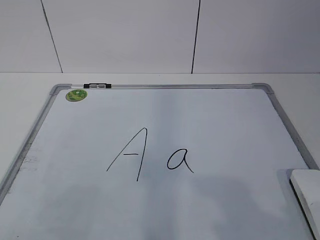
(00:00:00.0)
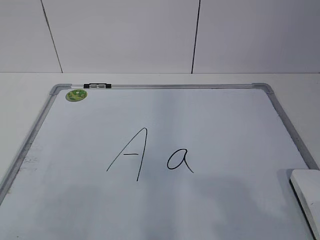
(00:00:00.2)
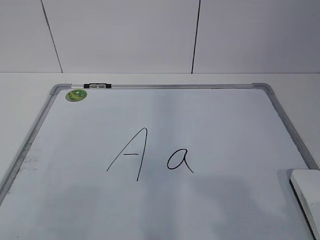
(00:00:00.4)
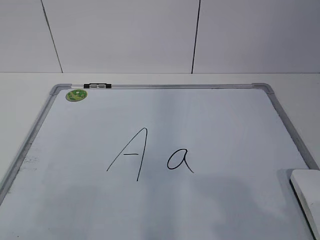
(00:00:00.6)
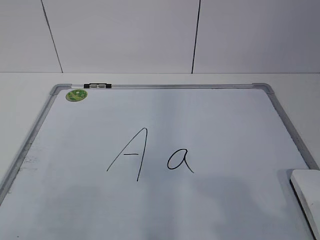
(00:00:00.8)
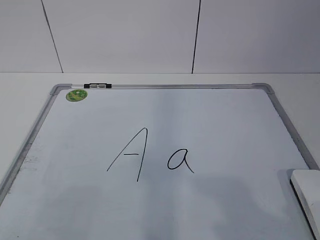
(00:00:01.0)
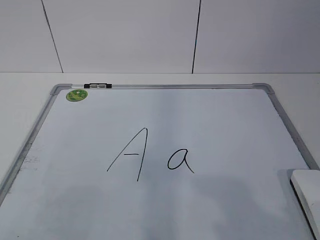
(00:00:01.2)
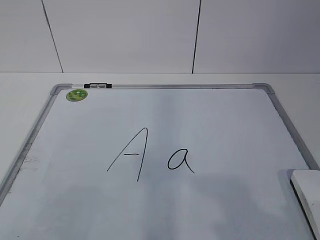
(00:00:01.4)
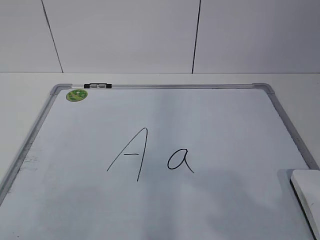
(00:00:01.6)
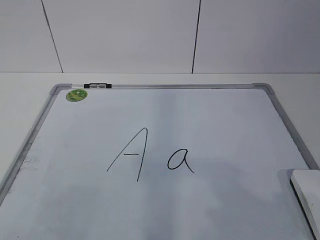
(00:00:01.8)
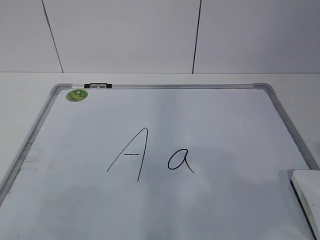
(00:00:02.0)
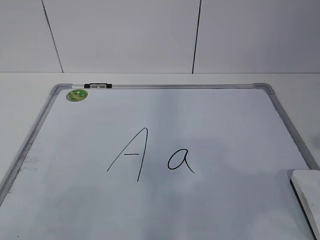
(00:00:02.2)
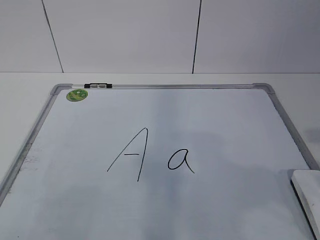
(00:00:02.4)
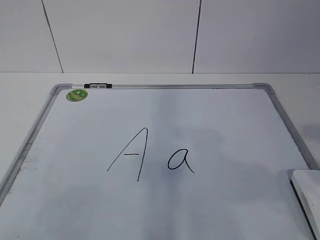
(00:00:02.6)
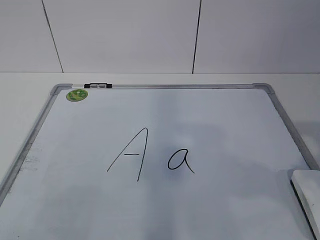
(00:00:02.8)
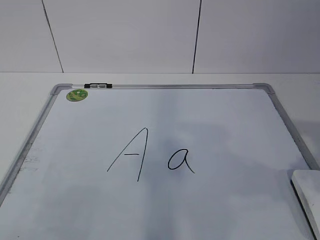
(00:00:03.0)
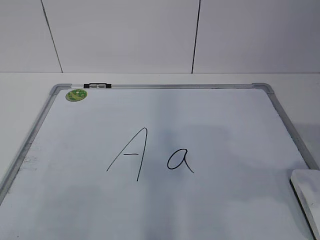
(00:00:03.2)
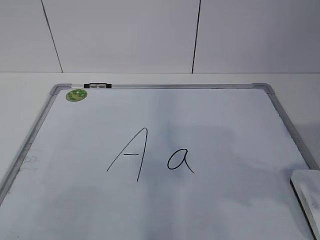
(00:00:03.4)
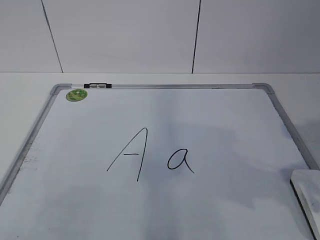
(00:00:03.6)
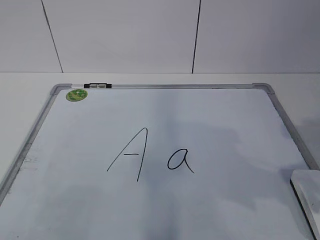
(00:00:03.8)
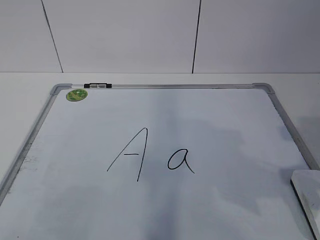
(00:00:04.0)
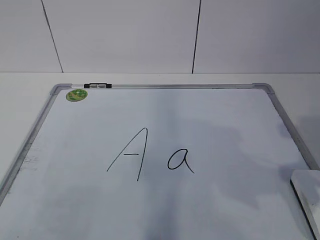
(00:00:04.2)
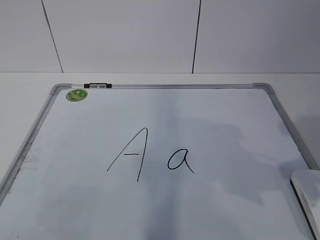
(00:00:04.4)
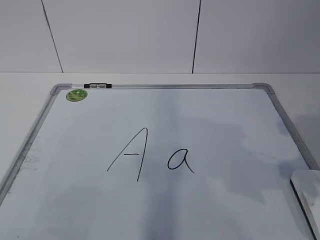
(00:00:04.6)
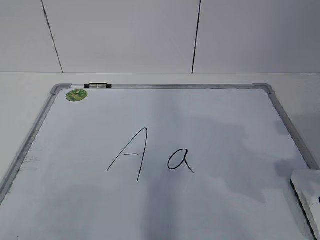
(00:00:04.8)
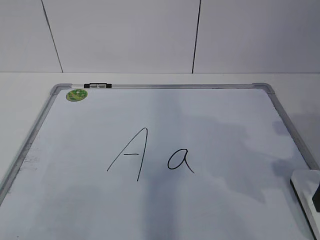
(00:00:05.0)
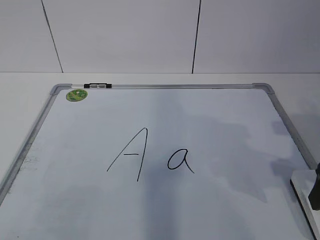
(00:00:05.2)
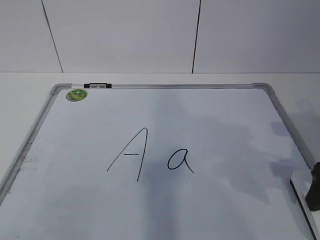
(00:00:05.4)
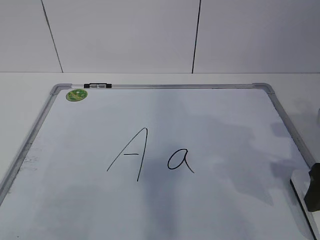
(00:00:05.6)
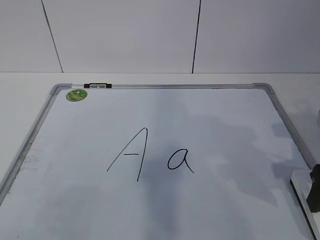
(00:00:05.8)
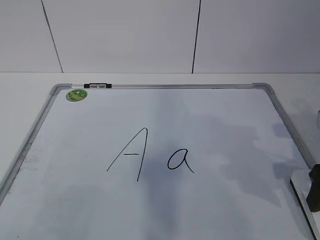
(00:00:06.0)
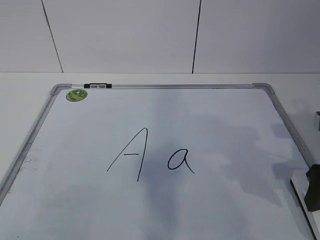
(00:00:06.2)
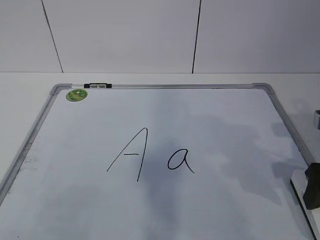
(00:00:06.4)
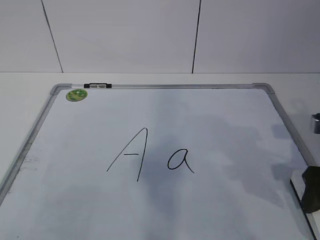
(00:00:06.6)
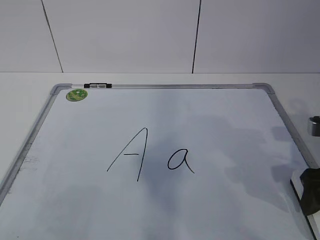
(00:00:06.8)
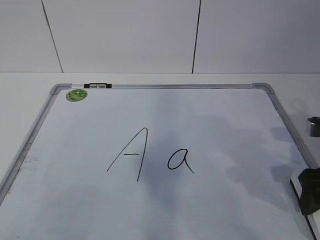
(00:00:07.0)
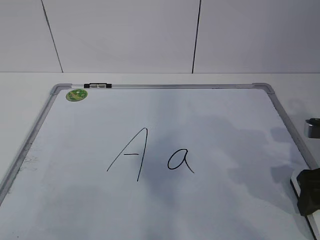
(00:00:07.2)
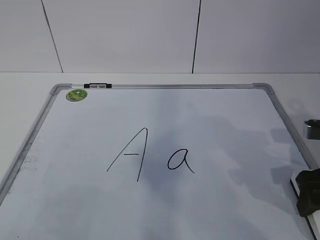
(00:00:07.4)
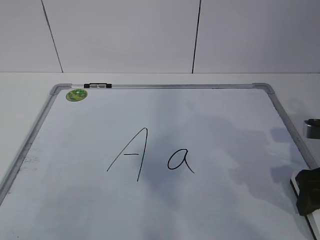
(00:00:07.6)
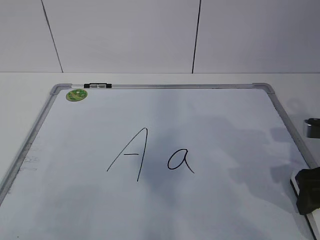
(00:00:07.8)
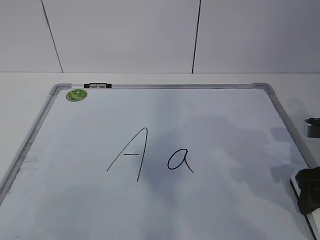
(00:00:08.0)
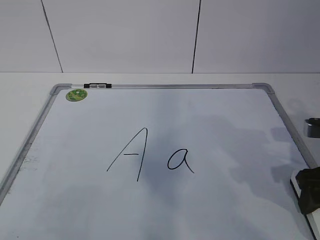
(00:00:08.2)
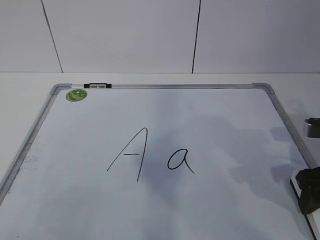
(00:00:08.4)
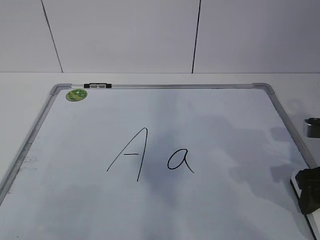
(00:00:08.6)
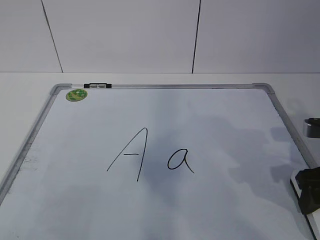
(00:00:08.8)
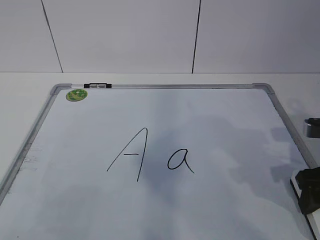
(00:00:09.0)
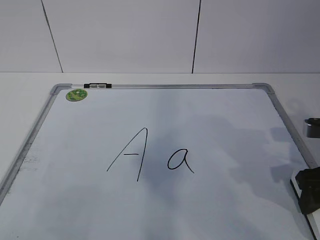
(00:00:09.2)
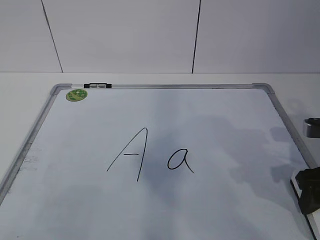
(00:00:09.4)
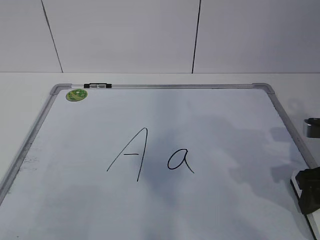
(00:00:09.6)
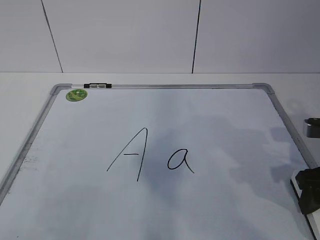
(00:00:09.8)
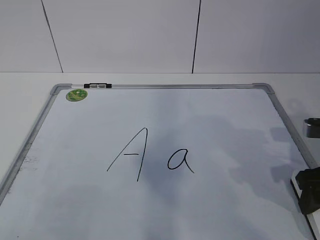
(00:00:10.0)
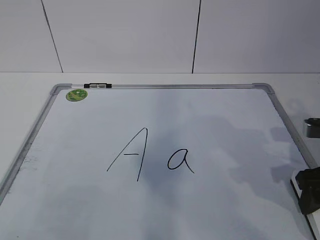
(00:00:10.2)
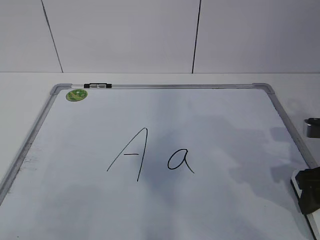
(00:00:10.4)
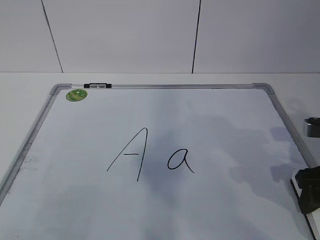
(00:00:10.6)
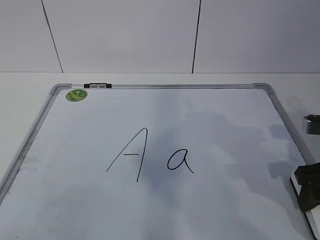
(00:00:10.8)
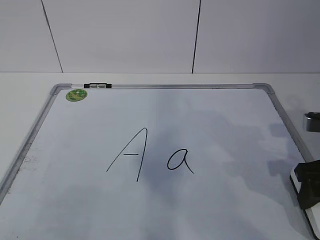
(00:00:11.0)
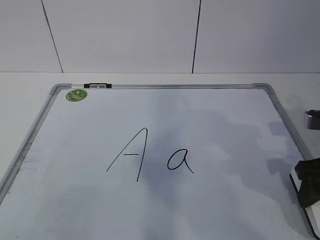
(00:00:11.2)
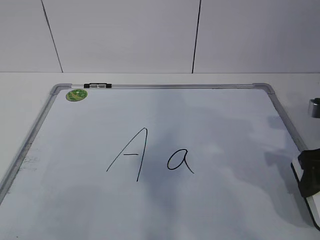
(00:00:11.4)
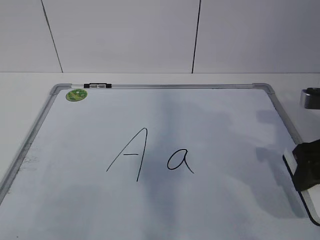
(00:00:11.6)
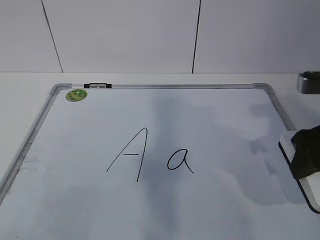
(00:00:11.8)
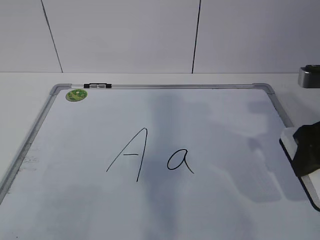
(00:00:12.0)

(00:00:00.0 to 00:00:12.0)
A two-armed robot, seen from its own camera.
Task of the whole recording: pick up the eraser on the blackboard and erase the letter "a".
00:00:04.4 - 00:00:06.0: The right gripper changes place by roughly 5 cm.
00:00:06.0 - 00:00:07.6: The grippers make only small movements.
00:00:09.0 - 00:00:10.4: Both grippers stay about where they are.
00:00:10.4 - 00:00:12.0: The right gripper moves upward, approximately 10 cm.

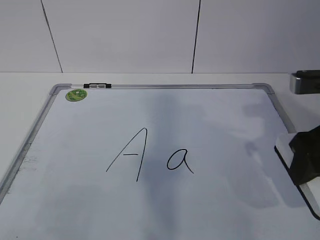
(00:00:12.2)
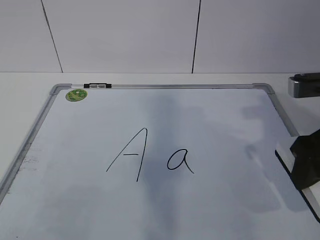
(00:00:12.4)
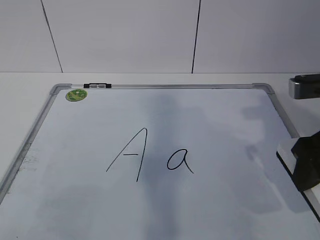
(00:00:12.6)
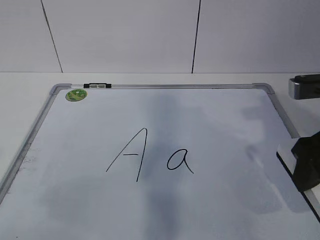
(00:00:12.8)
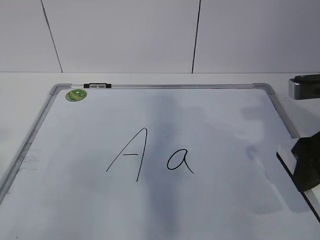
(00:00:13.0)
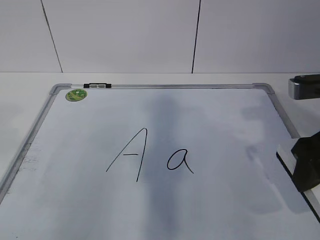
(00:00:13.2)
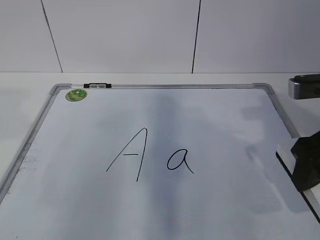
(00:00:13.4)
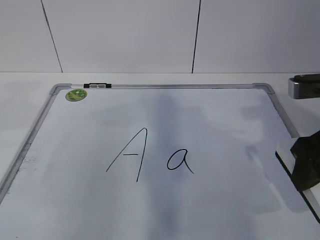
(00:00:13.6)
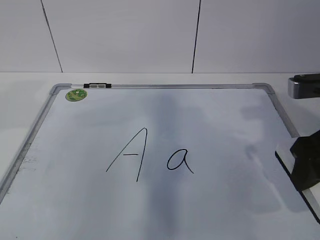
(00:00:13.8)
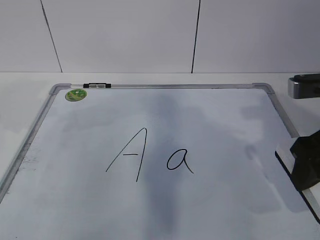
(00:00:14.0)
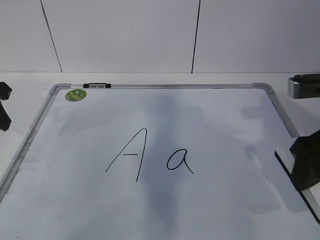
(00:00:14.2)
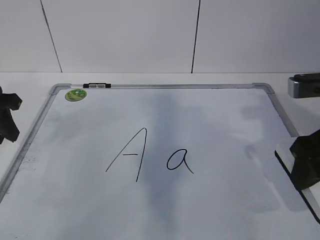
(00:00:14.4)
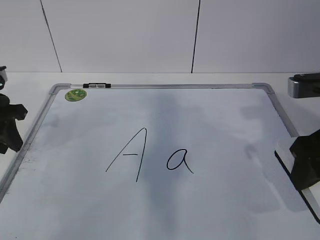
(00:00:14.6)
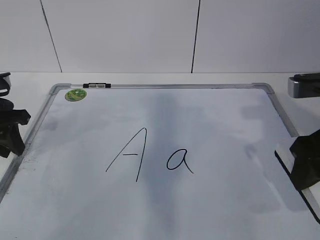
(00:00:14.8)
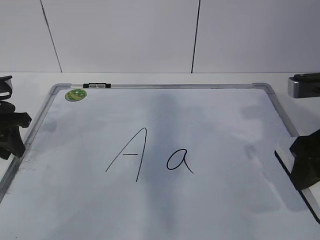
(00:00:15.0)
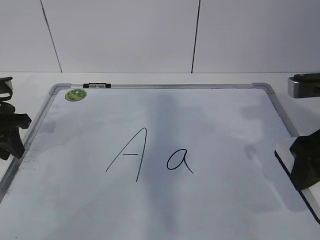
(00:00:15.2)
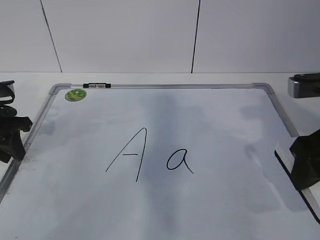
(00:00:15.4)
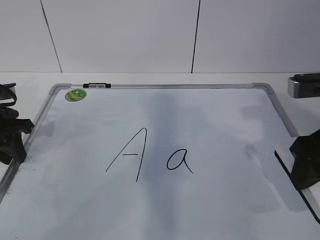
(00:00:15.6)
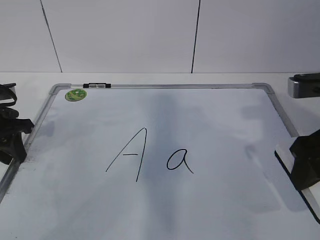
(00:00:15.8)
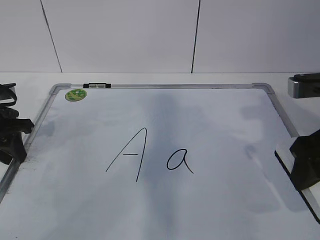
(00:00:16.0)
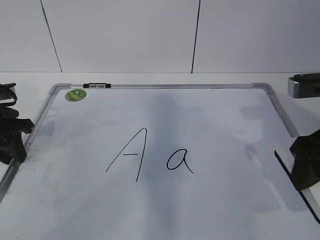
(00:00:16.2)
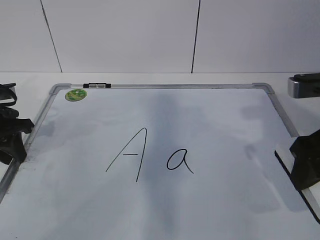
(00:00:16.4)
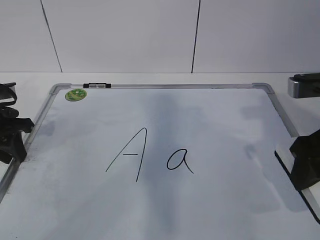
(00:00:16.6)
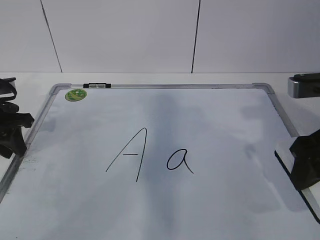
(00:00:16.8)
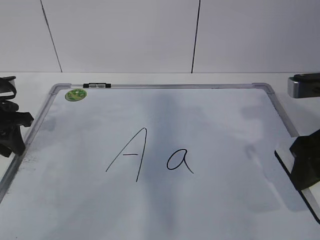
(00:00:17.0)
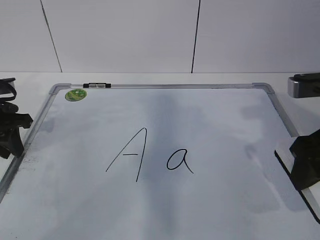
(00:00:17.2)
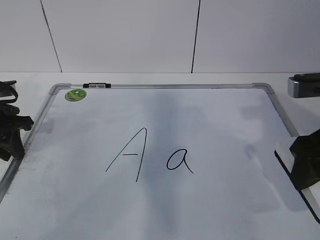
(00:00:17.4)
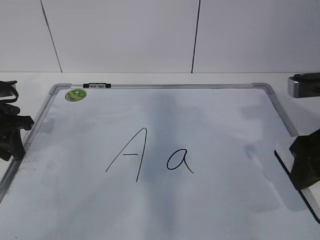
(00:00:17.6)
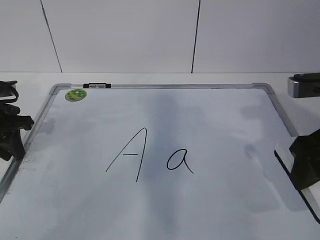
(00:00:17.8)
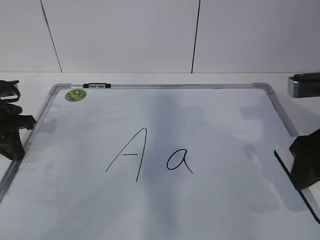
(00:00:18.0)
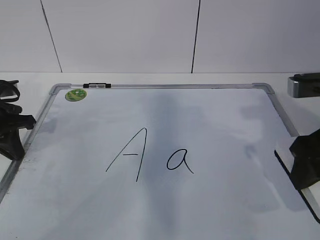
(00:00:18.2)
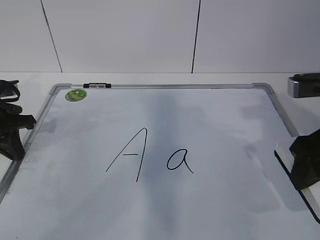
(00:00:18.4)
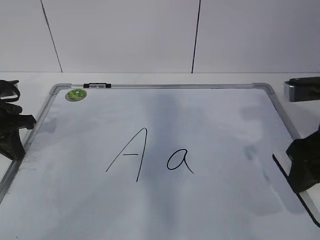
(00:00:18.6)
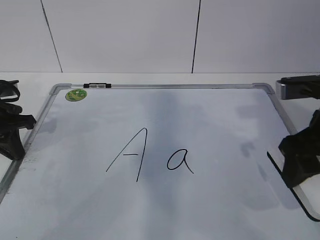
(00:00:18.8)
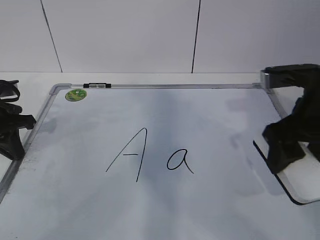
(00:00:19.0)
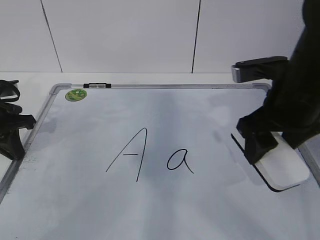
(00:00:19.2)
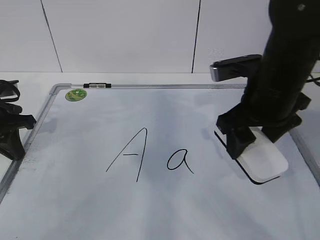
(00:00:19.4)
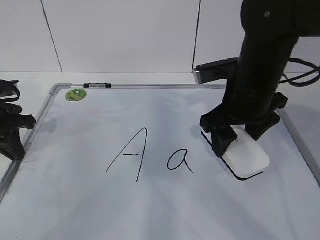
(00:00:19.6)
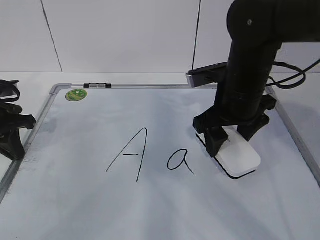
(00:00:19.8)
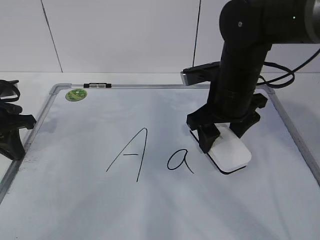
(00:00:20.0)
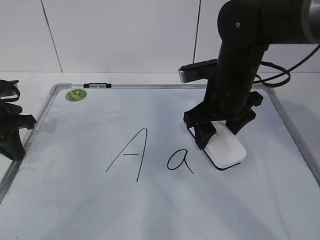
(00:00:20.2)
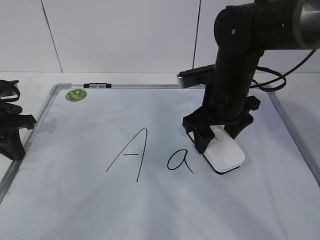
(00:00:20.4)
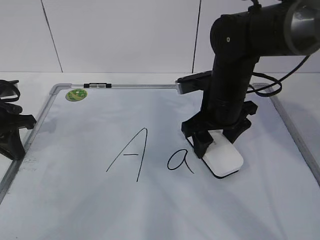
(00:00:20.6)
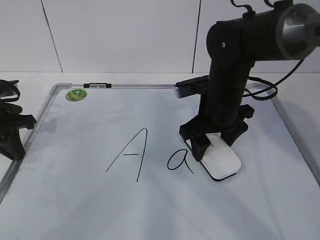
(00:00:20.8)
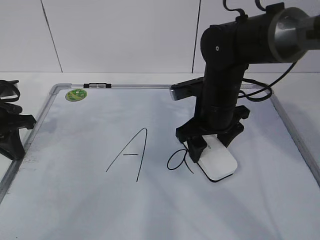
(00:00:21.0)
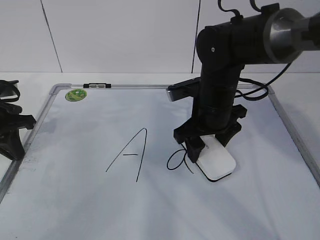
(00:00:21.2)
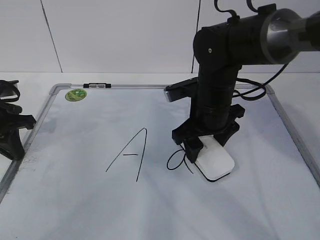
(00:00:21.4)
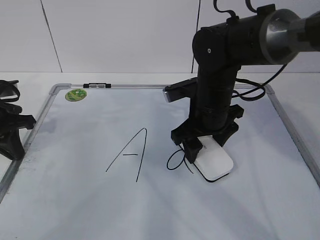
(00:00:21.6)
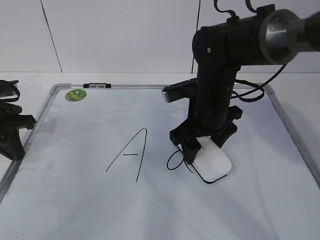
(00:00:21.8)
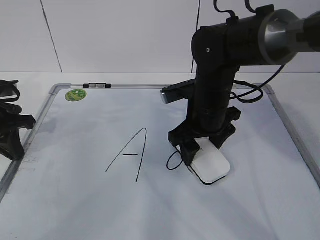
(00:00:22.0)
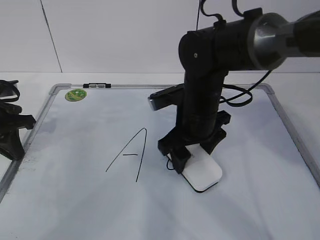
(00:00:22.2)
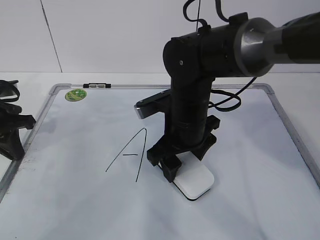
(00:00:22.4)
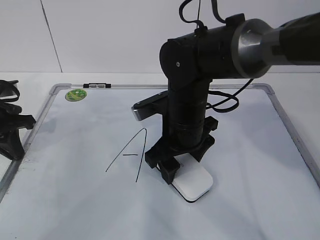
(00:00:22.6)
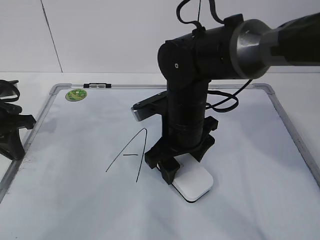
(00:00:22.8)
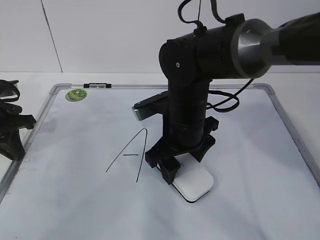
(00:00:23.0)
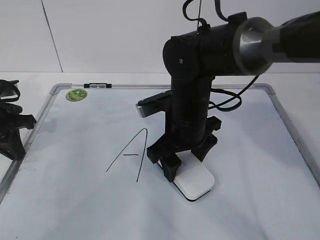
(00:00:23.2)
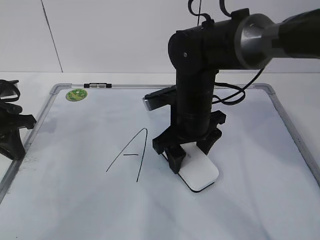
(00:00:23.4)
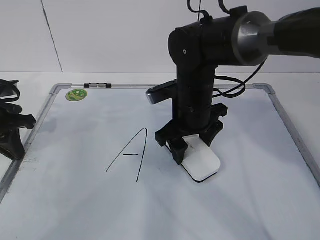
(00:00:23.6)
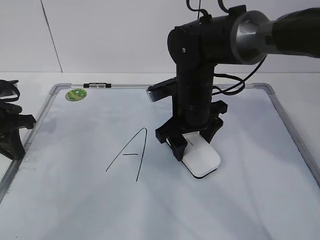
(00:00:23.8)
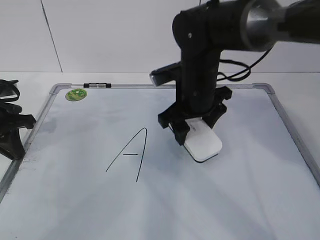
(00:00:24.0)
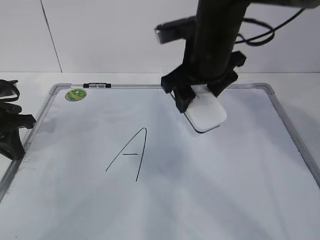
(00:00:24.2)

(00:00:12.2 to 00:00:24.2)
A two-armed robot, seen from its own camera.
Task of the whole recording: pick up the eraser on the blackboard and erase the letter "a".
Step, 00:00:12.2 - 00:00:14.8: Hold the drawing board steady with your left hand.
Step, 00:00:15.2 - 00:00:19.8: Erase the letter a with your right hand.
00:00:13.8 - 00:00:15.2: The left gripper goes approximately 15 cm downward and forward.
00:00:15.2 - 00:00:16.6: The grippers move only a little.
00:00:16.6 - 00:00:18.2: The left gripper closes up.
00:00:18.2 - 00:00:19.8: The right gripper travels forward and to the left by some 15 cm.
00:00:19.8 - 00:00:21.2: The right gripper changes place by some 5 cm.
00:00:21.2 - 00:00:22.6: The right gripper travels to the left by some 5 cm.
00:00:22.6 - 00:00:24.2: The right gripper shifts approximately 10 cm upward.
